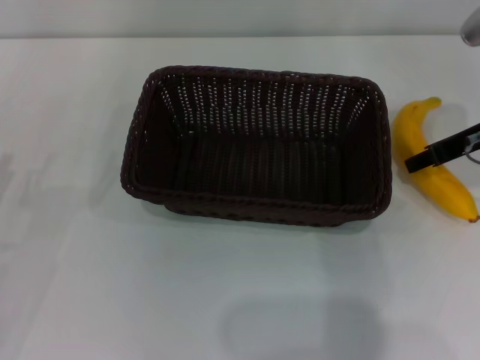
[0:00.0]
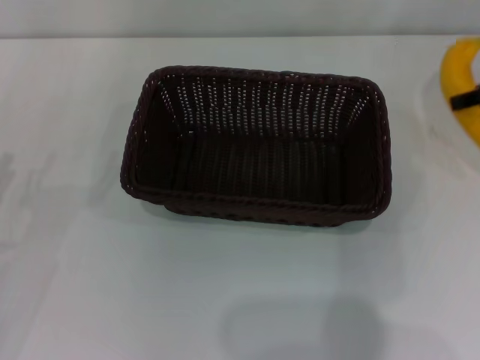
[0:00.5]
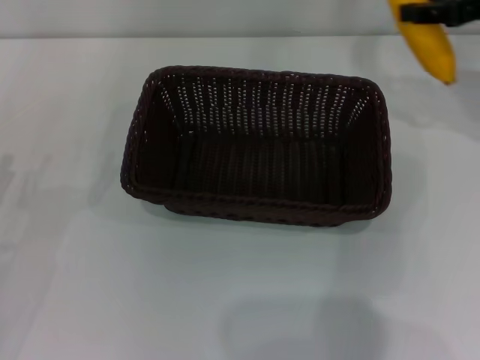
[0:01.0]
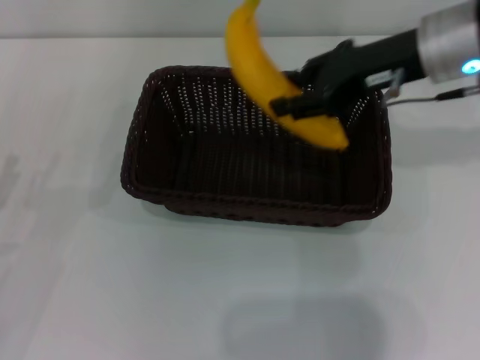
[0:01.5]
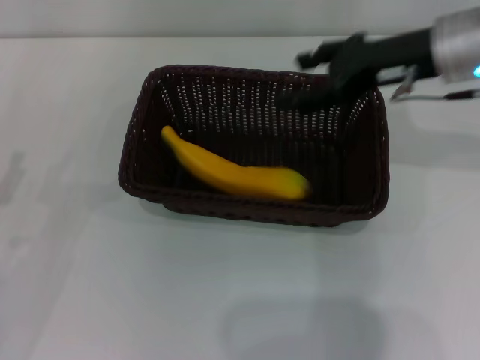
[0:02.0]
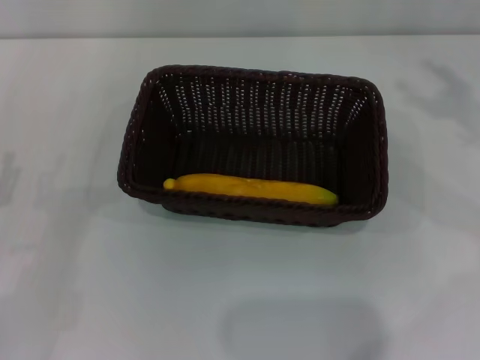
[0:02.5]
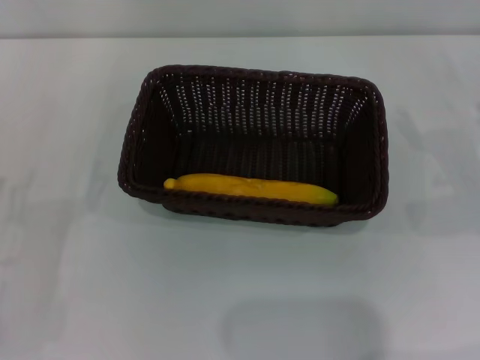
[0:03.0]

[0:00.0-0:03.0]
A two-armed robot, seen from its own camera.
Step, 0:00.5 to 0:02.0: Place the banana into the dark basket with the right gripper.
0:00.0 to 0:01.5: The right gripper is displaced to the left and upward by roughly 10 cm.
0:01.5 to 0:03.0: The right gripper goes about 25 cm to the right, downward and backward, and opens.

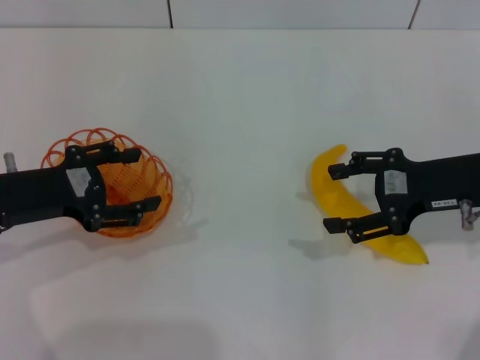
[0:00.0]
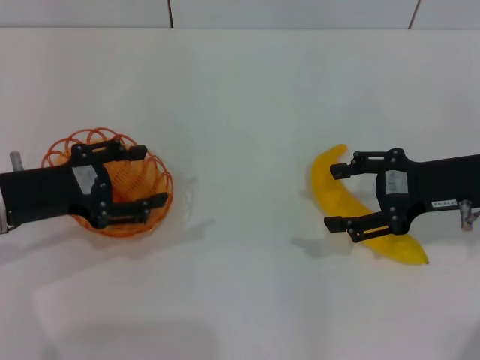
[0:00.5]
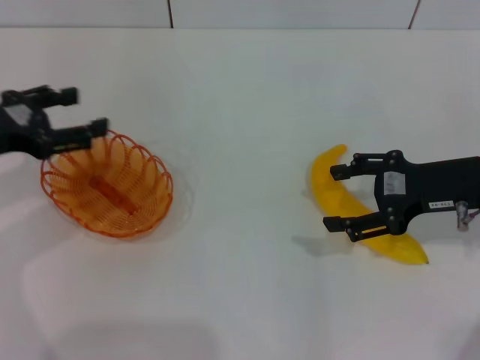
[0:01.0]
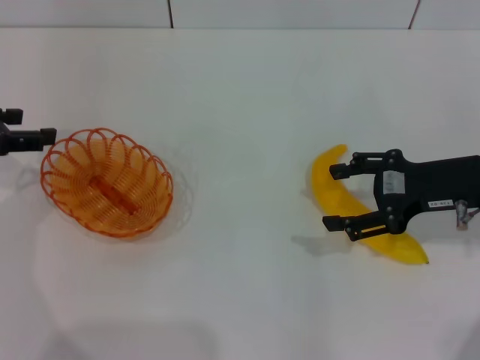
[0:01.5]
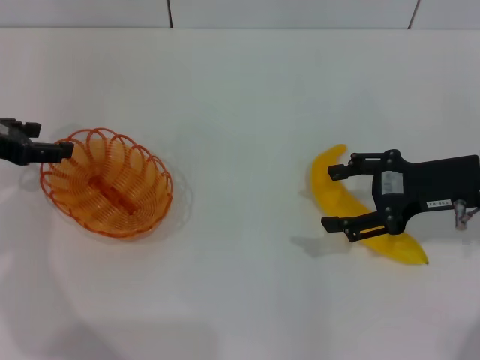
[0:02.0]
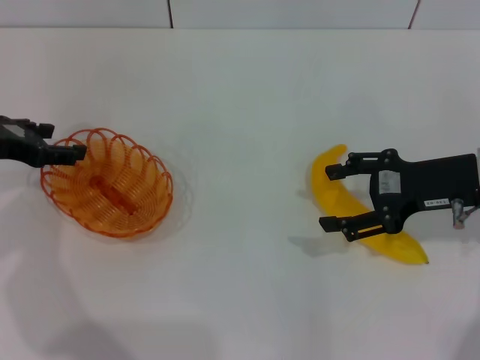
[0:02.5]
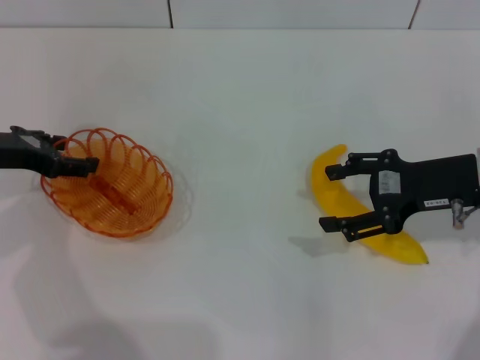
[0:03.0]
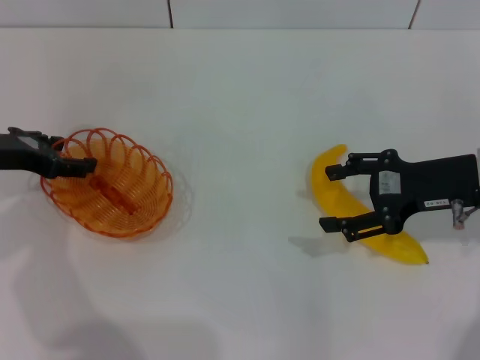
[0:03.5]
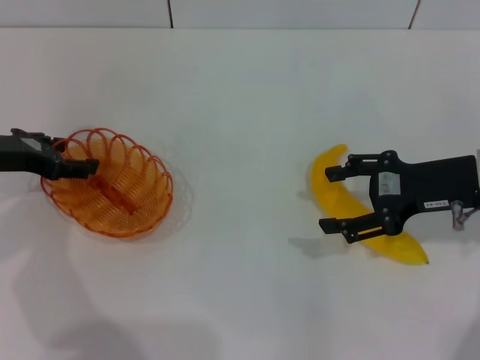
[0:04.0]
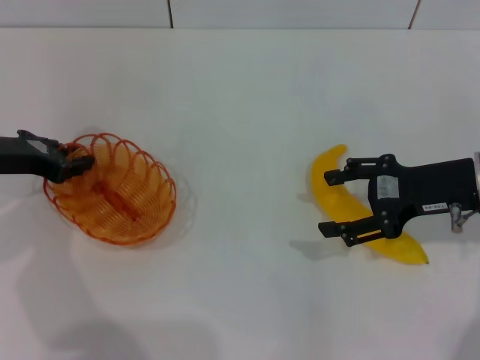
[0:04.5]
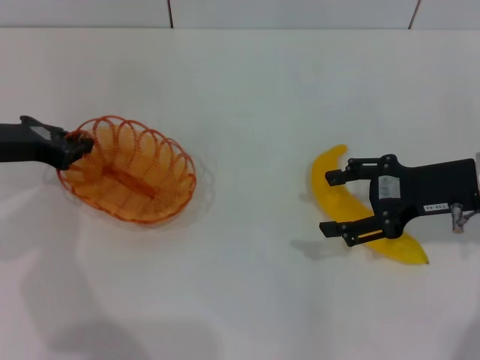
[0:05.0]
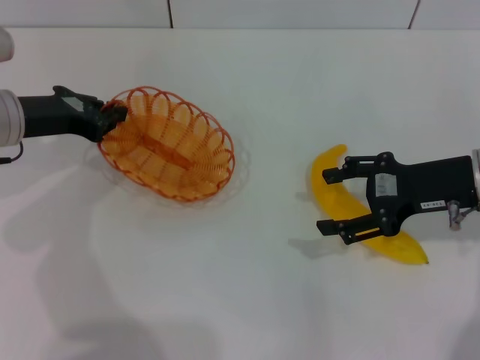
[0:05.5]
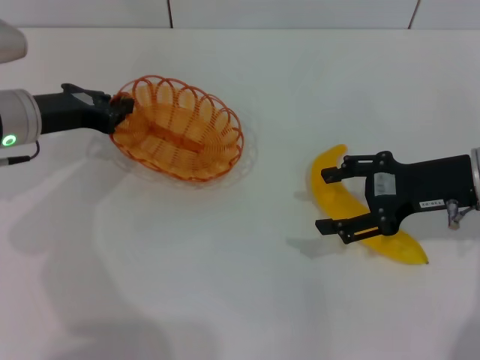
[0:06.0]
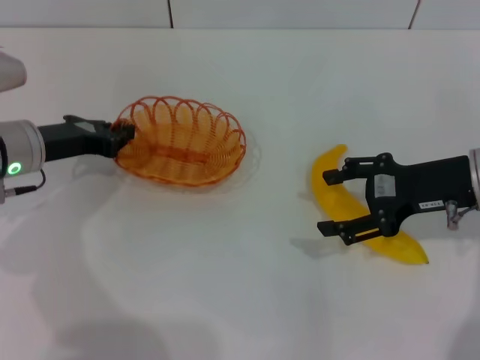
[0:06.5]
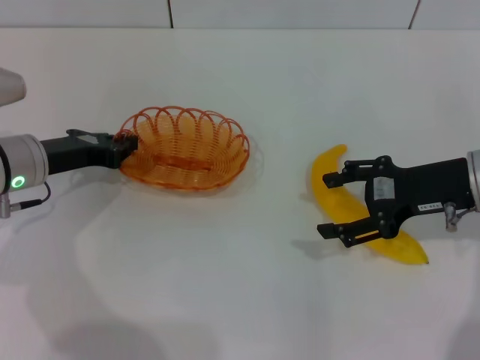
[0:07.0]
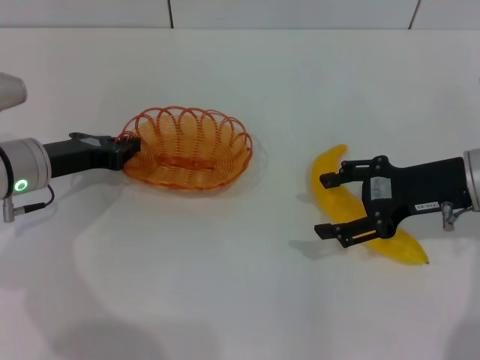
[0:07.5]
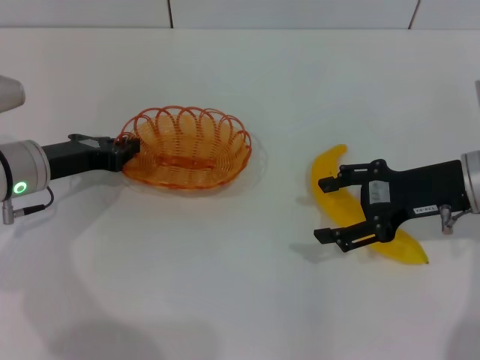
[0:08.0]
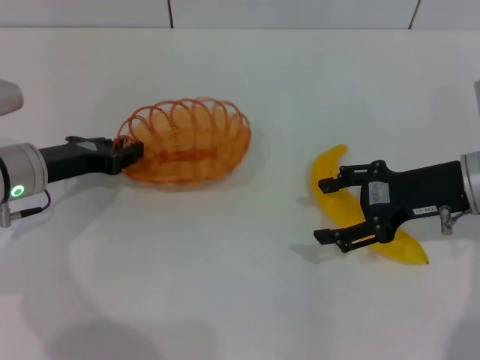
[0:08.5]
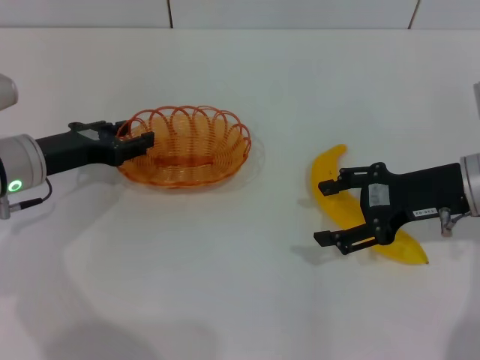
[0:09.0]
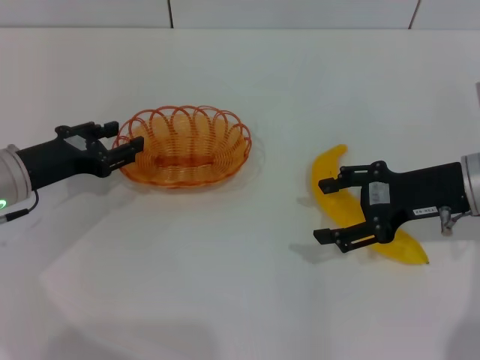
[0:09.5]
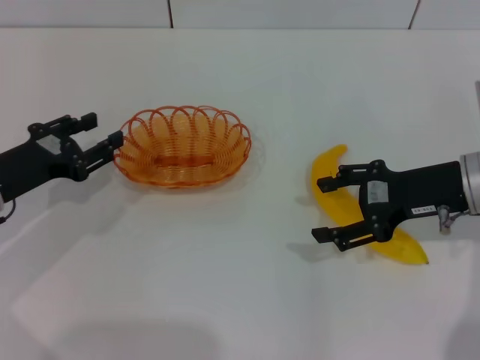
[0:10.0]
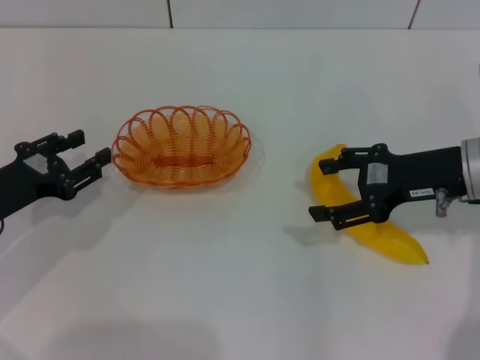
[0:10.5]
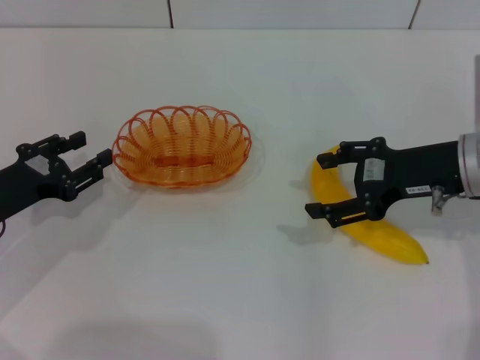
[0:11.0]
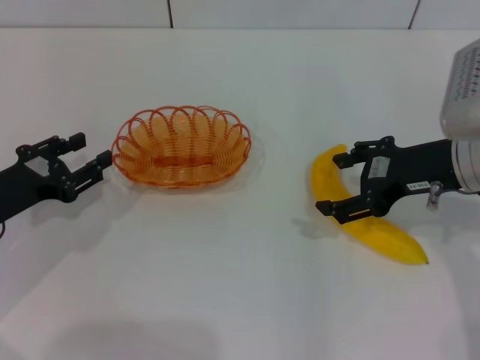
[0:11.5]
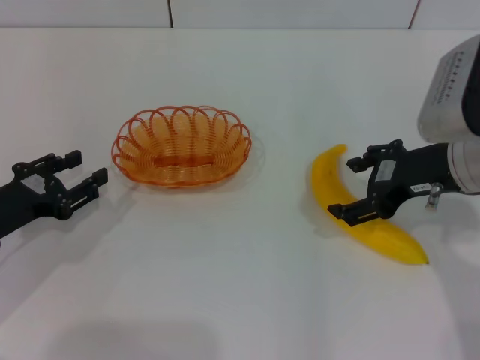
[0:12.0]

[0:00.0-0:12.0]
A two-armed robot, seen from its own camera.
Step, 0:00.0 to 0:05.0: Pick up the basket with the left gripper.
Step, 0:05.5 to 0:09.5: Place the basket in the center of view with the left gripper.
0:00.0 to 0:02.0: The left gripper goes roughly 10 cm forward and to the left.
0:02.0 to 0:04.0: There are only small adjustments of the grippers.
0:04.0 to 0:06.0: The left gripper travels to the right by approximately 5 cm, and closes up.
0:06.0 to 0:08.0: The left gripper changes place by about 5 cm.
0:08.0 to 0:10.0: The left gripper changes place by approximately 5 cm, and opens.

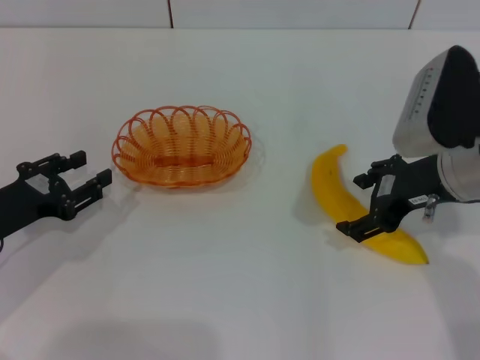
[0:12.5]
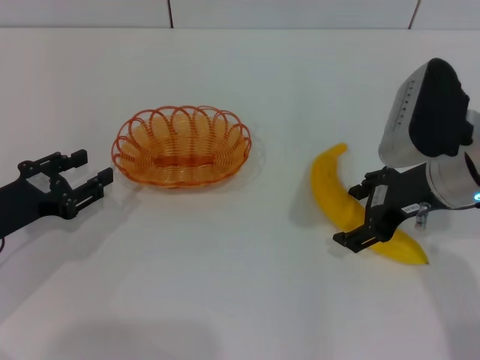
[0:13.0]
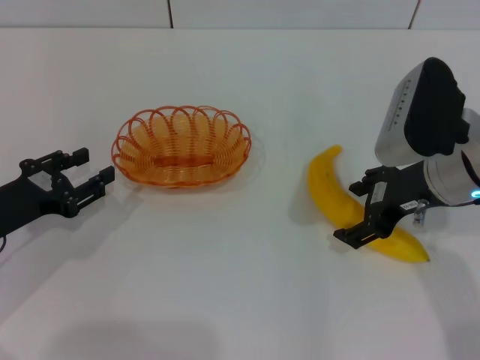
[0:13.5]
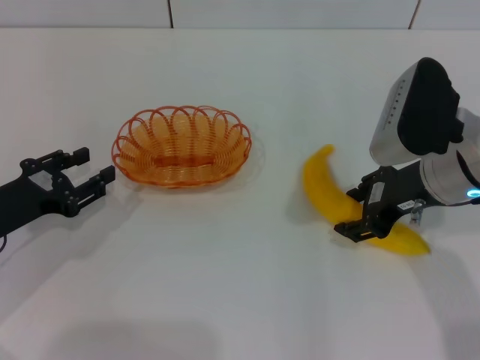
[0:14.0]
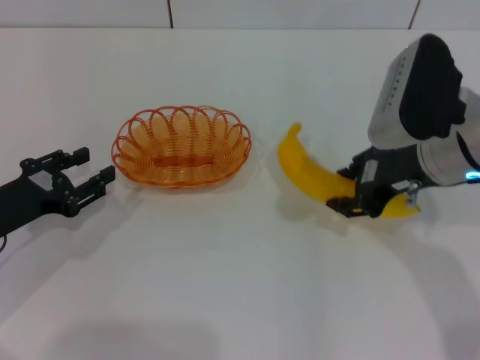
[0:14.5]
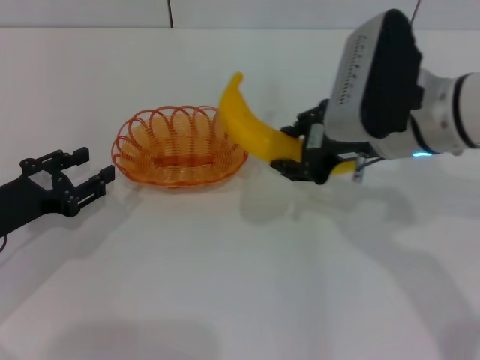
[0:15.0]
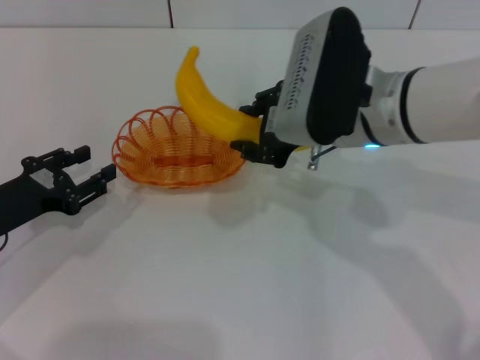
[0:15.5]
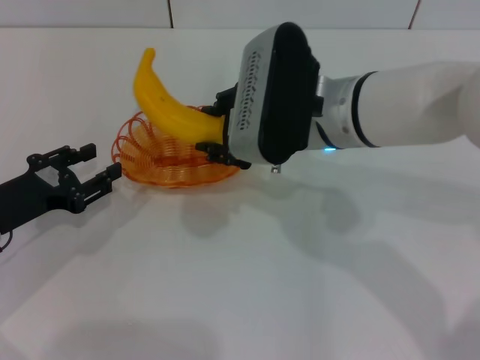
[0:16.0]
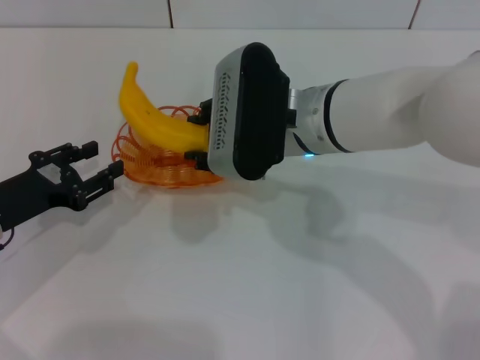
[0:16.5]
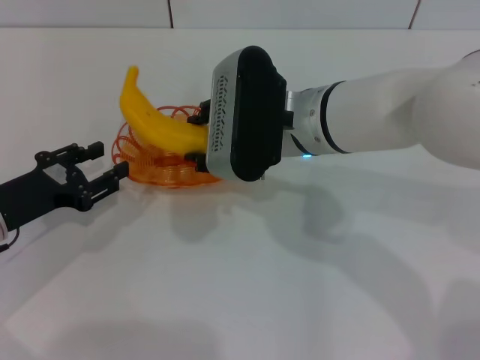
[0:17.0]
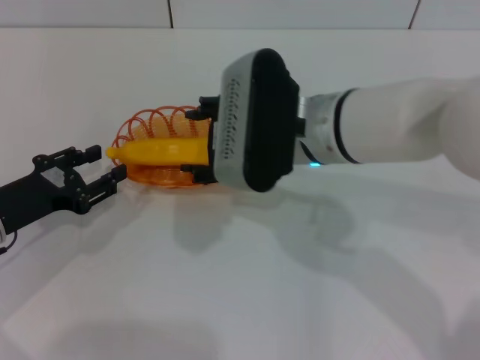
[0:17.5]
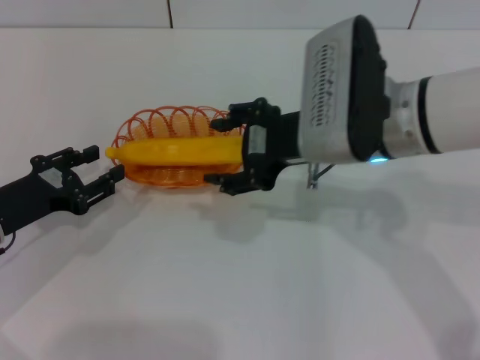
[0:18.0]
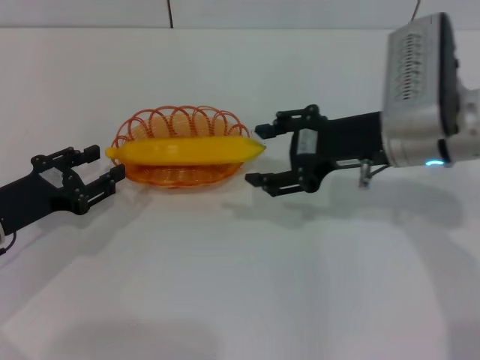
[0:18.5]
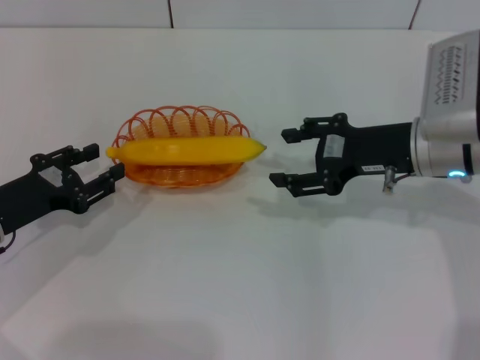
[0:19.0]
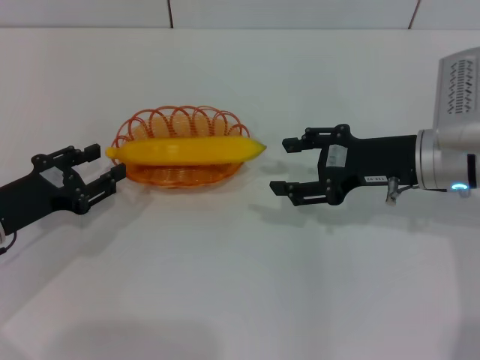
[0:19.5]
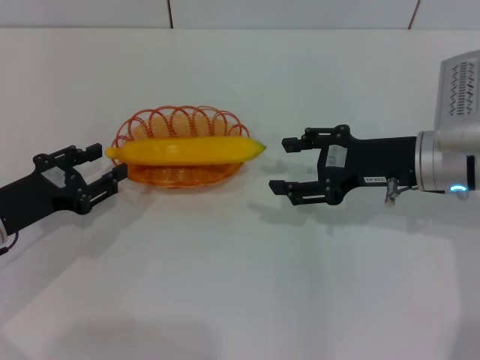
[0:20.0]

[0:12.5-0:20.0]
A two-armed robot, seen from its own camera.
Step, 0:12.5 to 0:14.5: Pick up the banana with the right gripper.
Step, 0:15.0 to 0:17.0: Place the banana into the basket with the right gripper.
0:12.5 to 0:14.5: The right gripper closes its fingers.
0:14.5 to 0:16.5: The right gripper is displaced to the left by approximately 15 cm.
0:16.5 to 0:18.0: The right gripper heads to the right, covering roughly 5 cm, and opens its fingers.
0:18.0 to 0:20.0: The right gripper travels to the right and downward by about 10 cm.
